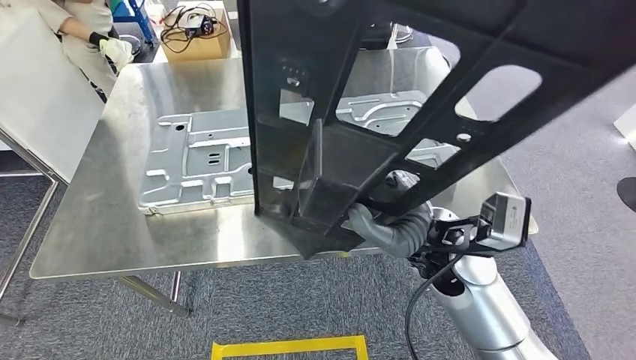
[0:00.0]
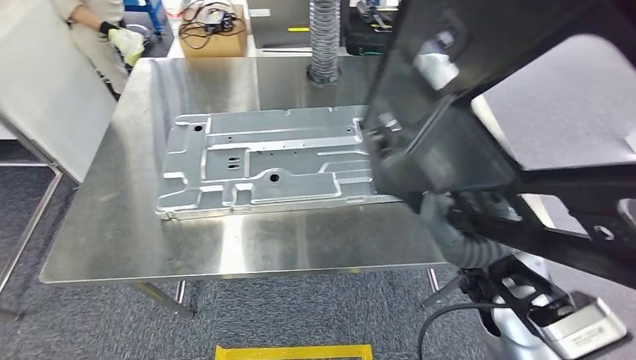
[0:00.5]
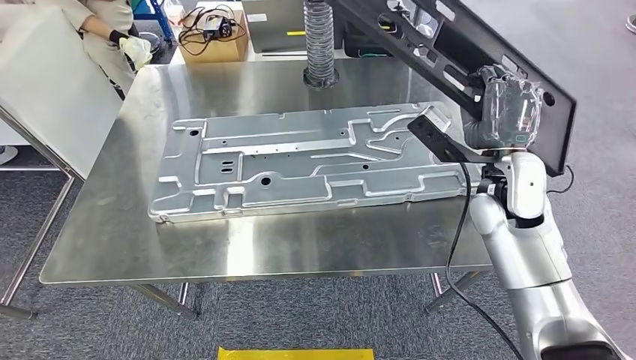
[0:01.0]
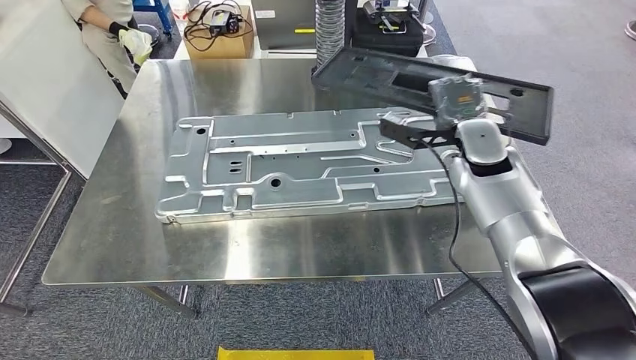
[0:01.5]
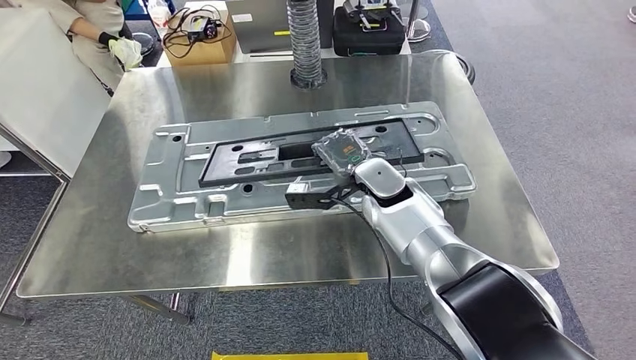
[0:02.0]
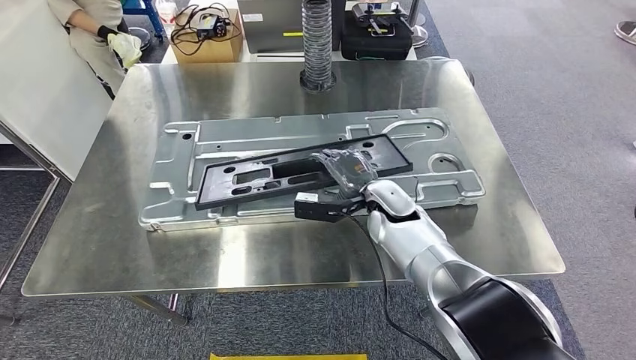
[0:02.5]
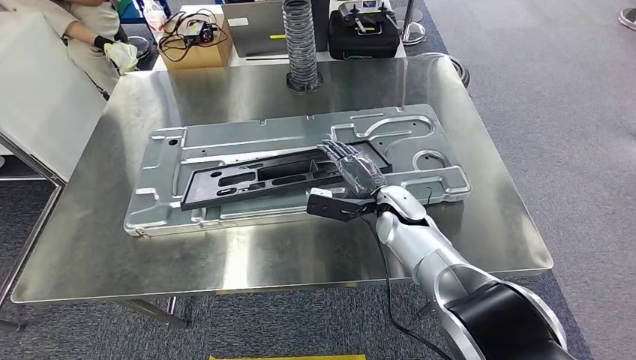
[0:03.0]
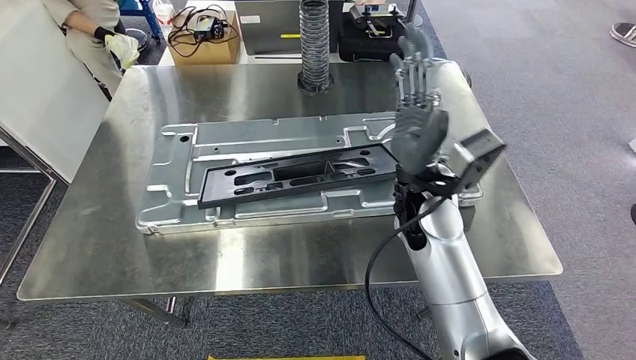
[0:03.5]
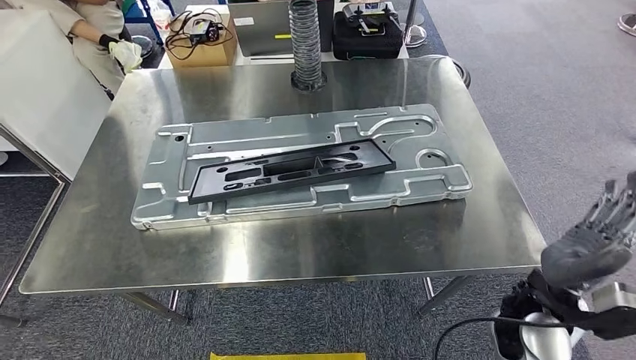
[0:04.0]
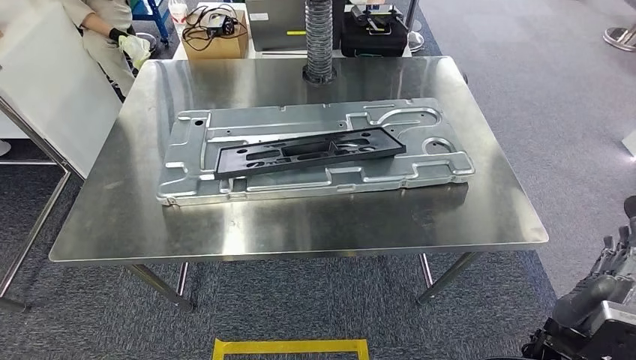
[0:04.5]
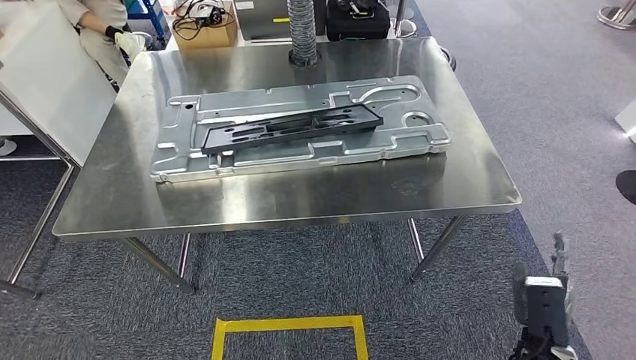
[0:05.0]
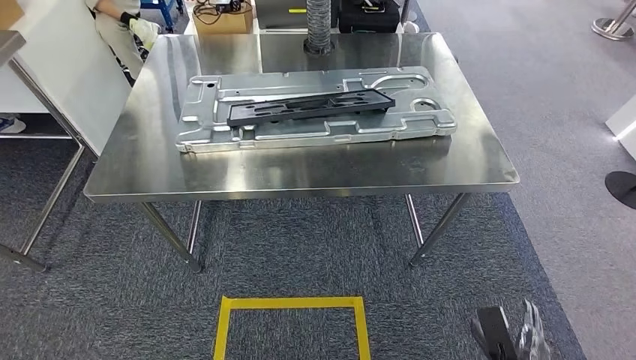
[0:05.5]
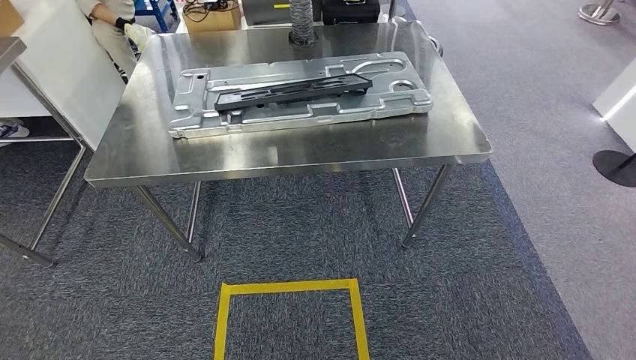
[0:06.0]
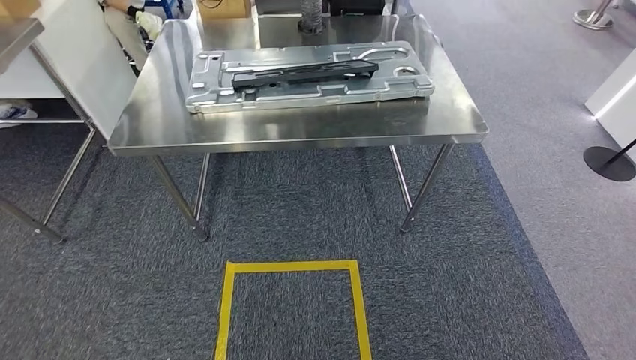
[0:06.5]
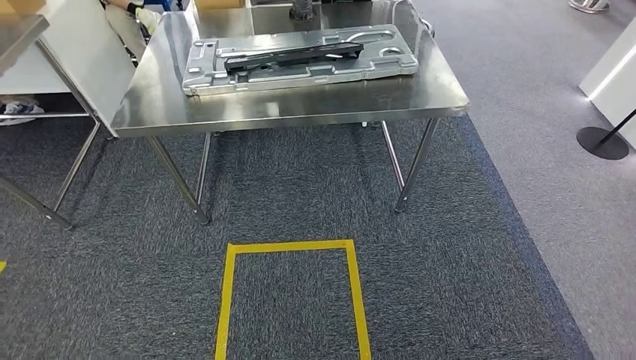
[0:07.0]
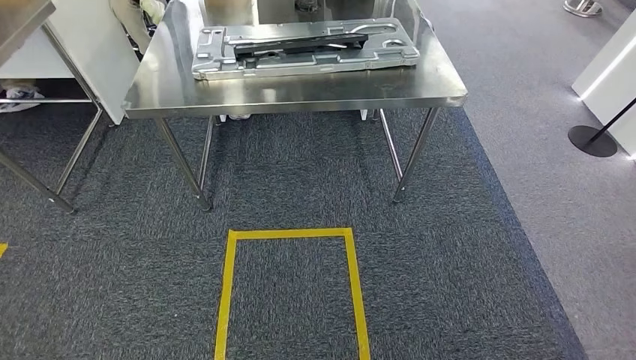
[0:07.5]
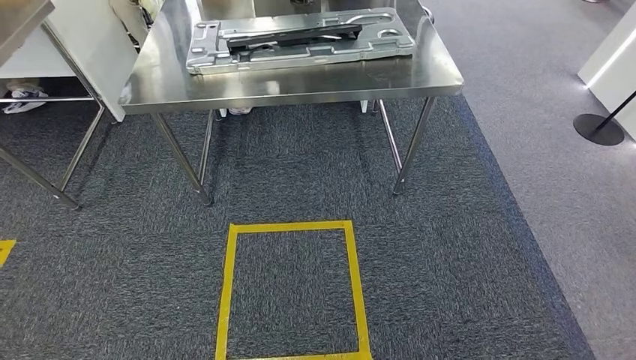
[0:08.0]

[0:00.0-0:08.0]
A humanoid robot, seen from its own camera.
Step, 0:00.0 to 0:03.5: Insert the small component into the corresponding slot on the workbench.
Step, 0:04.0 to 0:08.0: Return to the initial position at the workbench.
